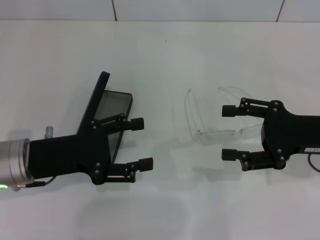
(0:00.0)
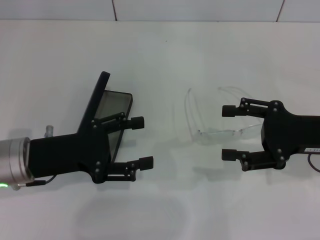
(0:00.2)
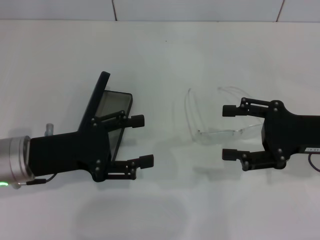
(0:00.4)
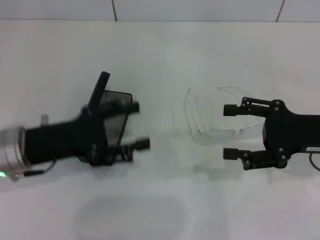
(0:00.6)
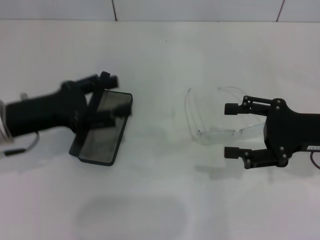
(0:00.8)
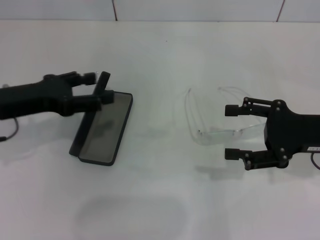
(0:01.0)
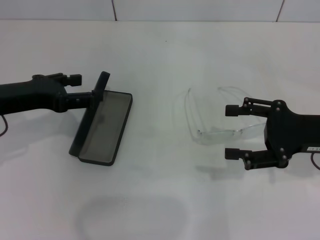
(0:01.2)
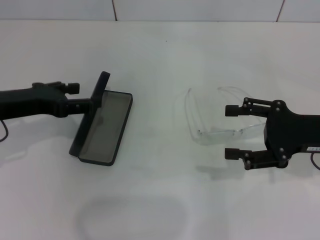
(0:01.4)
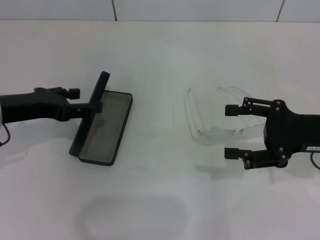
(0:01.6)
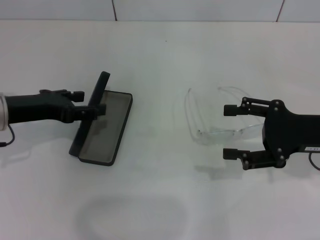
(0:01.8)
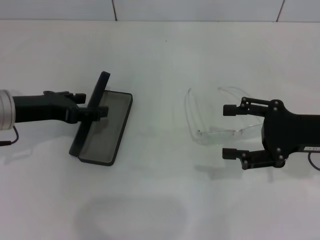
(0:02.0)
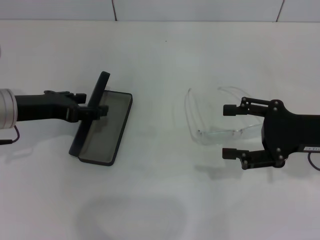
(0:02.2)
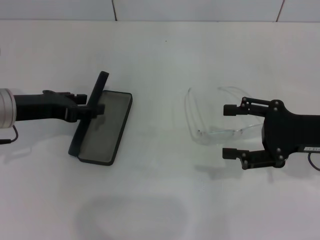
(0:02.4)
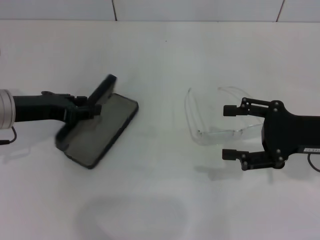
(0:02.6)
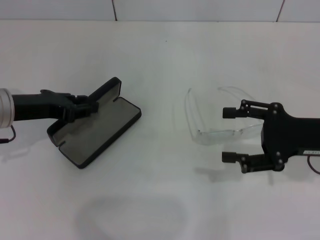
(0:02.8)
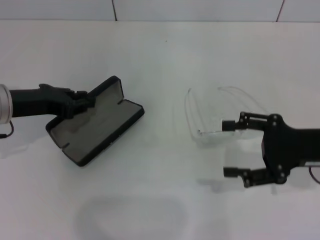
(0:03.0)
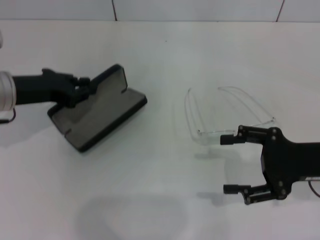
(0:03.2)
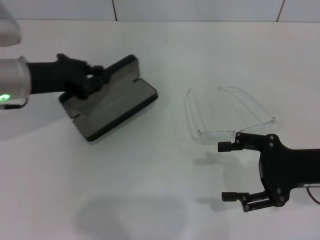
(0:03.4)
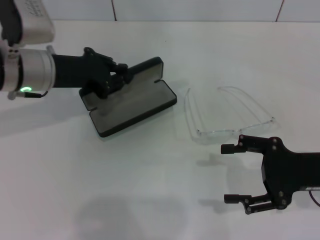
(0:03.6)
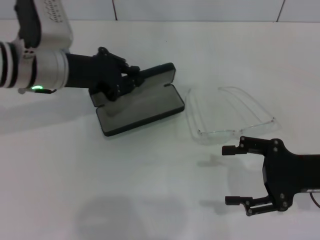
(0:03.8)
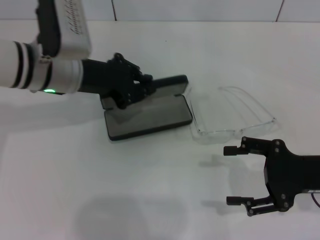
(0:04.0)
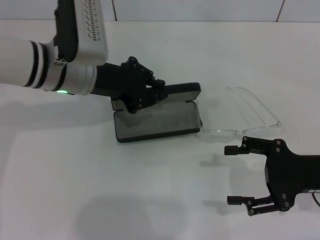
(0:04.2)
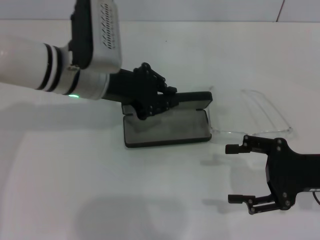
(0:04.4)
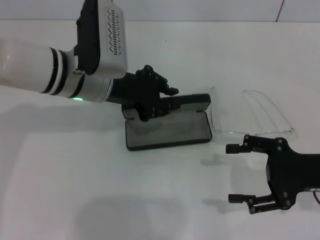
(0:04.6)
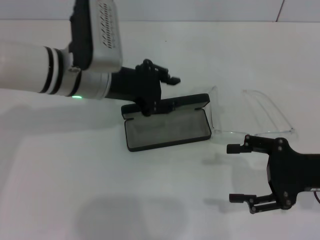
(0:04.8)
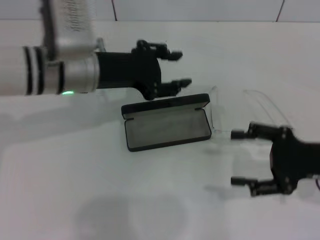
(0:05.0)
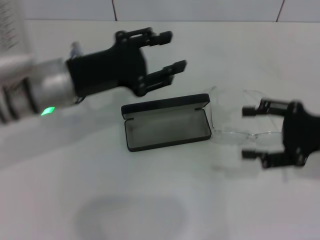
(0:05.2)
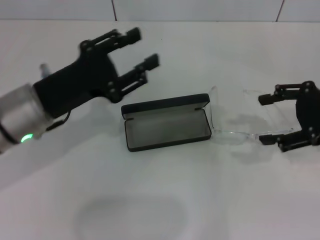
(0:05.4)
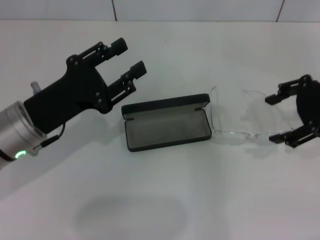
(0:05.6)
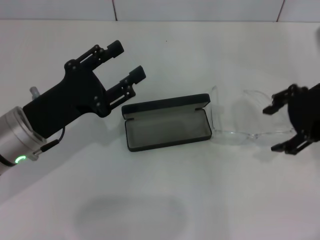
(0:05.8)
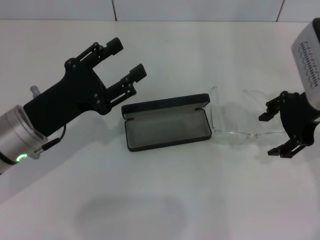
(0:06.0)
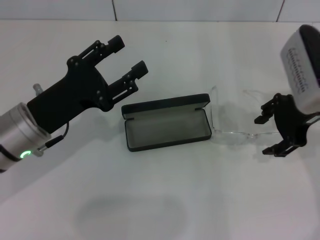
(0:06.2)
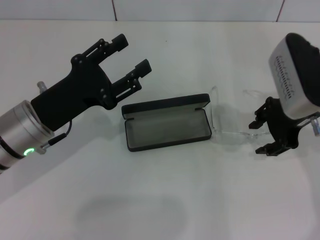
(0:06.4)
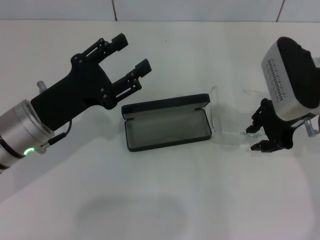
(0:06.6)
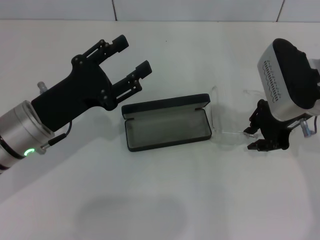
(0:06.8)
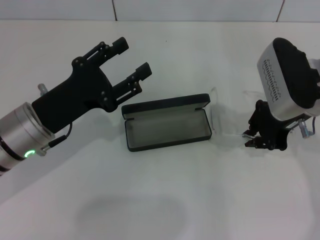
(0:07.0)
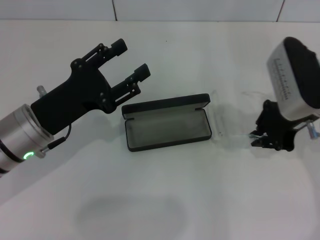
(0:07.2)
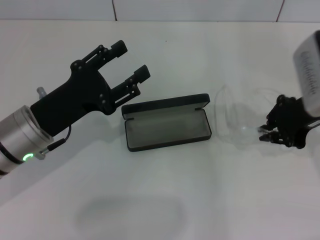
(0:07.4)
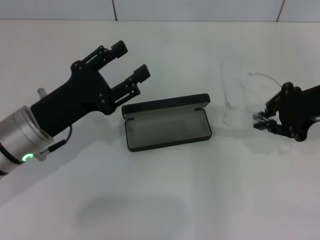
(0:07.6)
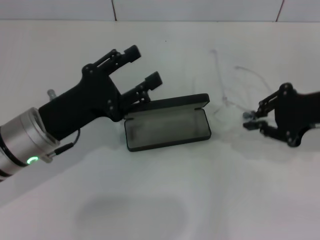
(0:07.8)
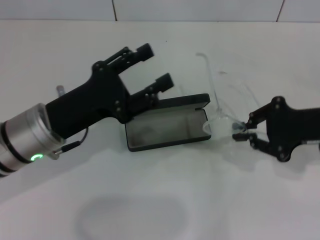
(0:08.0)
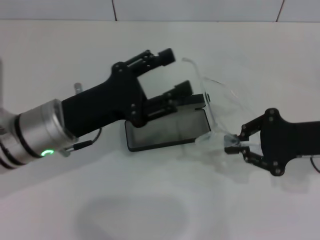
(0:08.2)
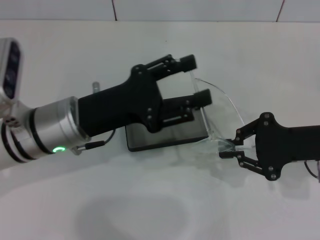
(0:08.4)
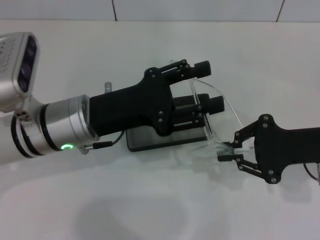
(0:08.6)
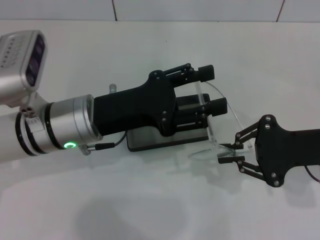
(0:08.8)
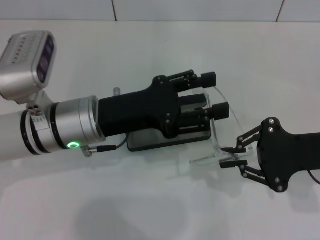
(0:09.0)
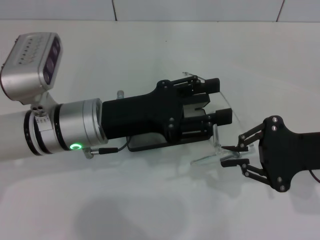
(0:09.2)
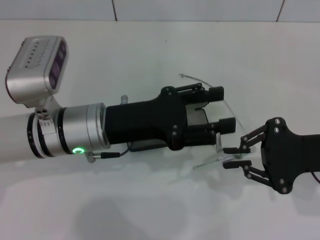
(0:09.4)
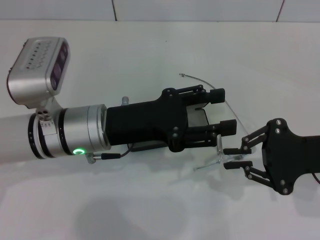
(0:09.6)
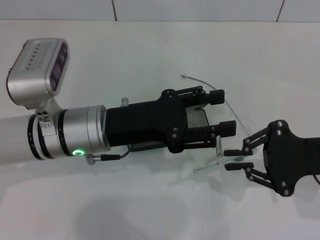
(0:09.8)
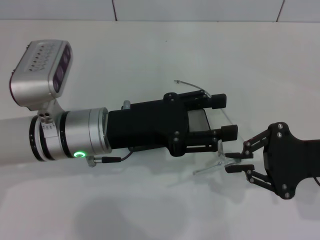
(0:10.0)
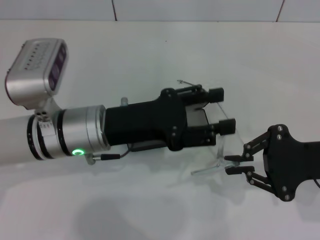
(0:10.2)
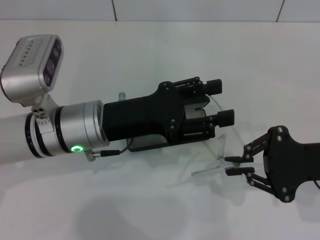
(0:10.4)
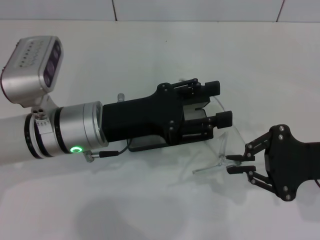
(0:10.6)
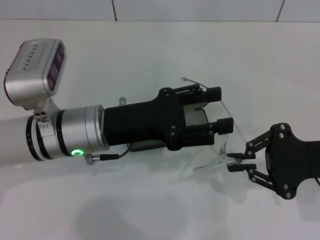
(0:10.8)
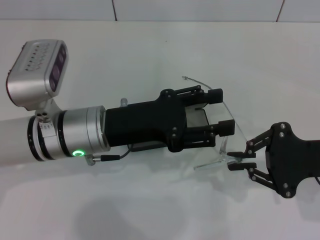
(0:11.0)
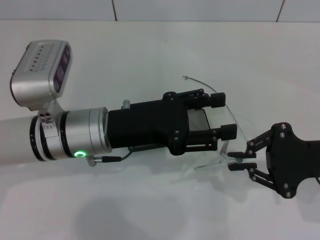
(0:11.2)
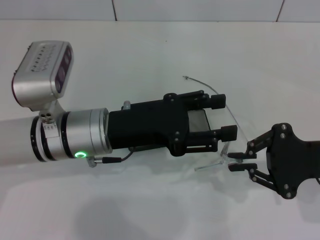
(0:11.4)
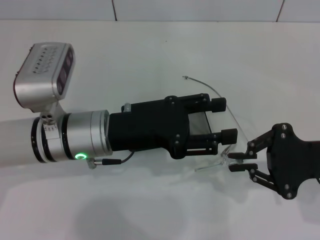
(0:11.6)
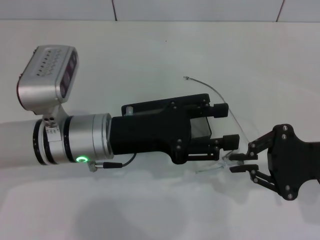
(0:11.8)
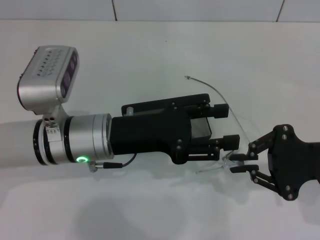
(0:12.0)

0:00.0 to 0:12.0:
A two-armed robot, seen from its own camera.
Step, 0:00.0 to 0:02.8: Grab the glasses case with your left hand.
Step, 0:03.0 to 0:04.8: Place the glasses case in the center of the table with your left hand.
Step, 0:05.0 to 0:07.0: Grab the eyeglass frame with your right hand.
0:00.0 to 0:01.6: The left gripper travels forward by some 5 cm.
0:01.6 to 0:03.0: The left gripper closes.
0:03.0 to 0:04.4: The left gripper goes some 15 cm to the right.
0:04.4 to 0:06.0: The right gripper is displaced upward, forward and to the left by roughly 15 cm, while the left gripper travels backward, to the left and downward by approximately 15 cm, and opens its fingers.
0:06.0 to 0:07.6: The right gripper closes.
0:07.6 to 0:09.0: The left gripper moves to the right, about 5 cm. The right gripper moves backward and downward, approximately 10 cm.
0:09.0 to 0:10.4: The two grippers keep their place.
0:10.4 to 0:12.0: The grippers stay close to where they were, moving slightly.

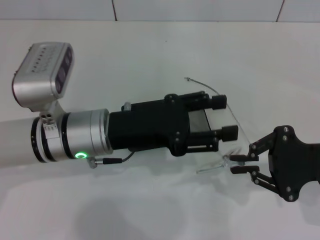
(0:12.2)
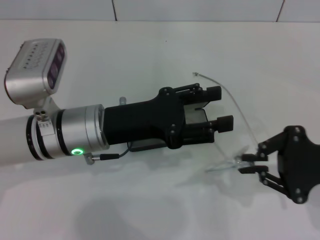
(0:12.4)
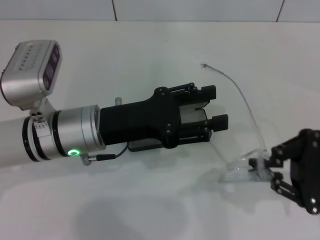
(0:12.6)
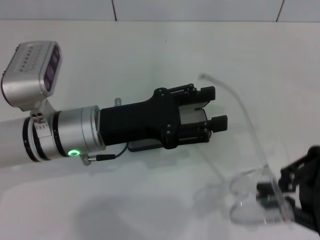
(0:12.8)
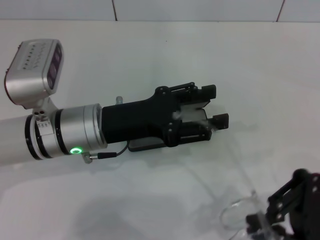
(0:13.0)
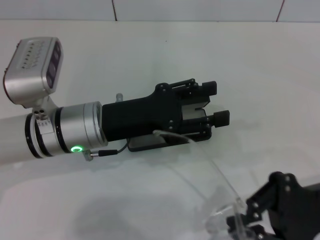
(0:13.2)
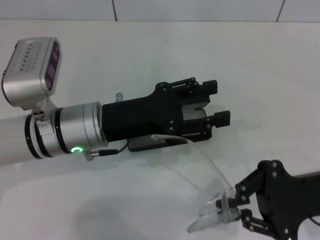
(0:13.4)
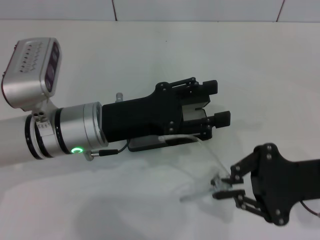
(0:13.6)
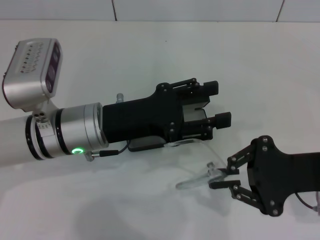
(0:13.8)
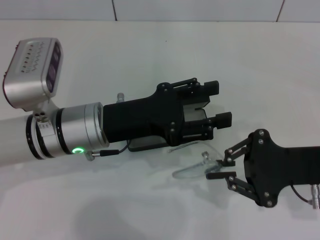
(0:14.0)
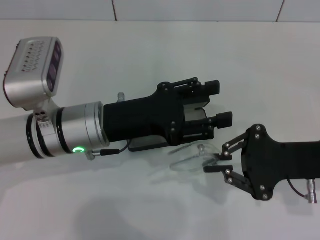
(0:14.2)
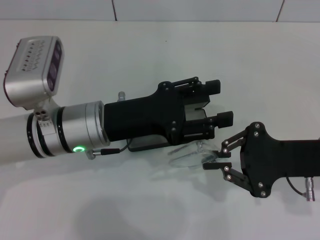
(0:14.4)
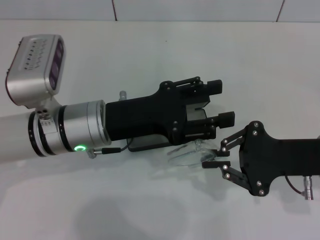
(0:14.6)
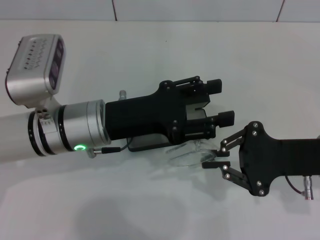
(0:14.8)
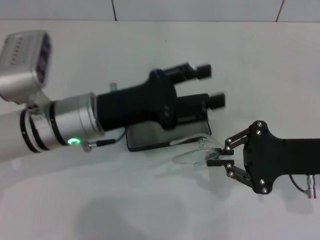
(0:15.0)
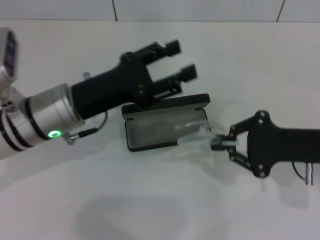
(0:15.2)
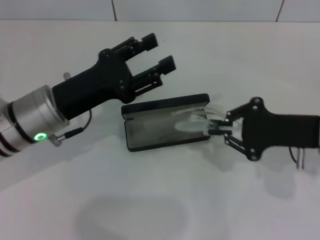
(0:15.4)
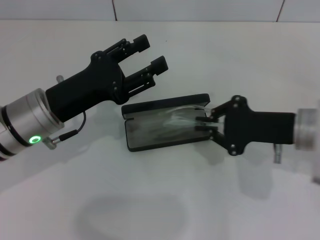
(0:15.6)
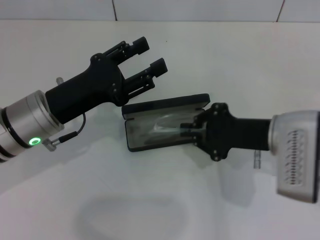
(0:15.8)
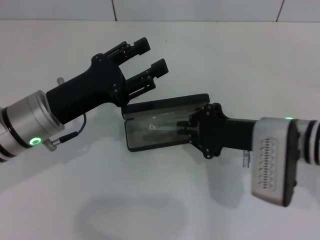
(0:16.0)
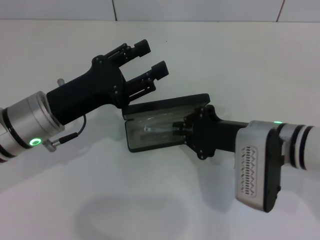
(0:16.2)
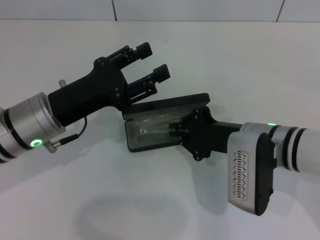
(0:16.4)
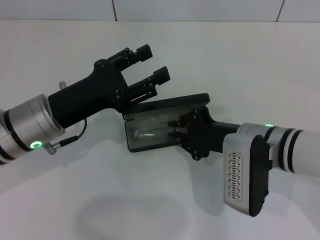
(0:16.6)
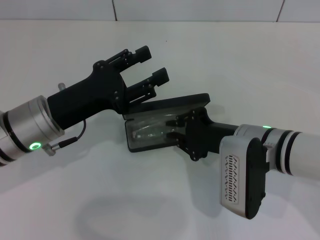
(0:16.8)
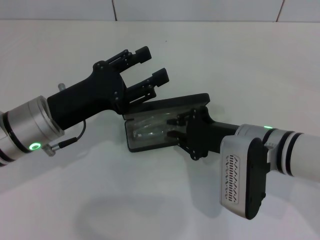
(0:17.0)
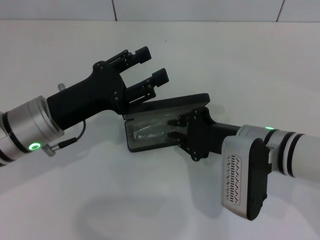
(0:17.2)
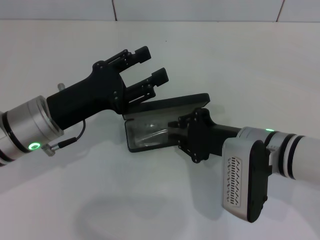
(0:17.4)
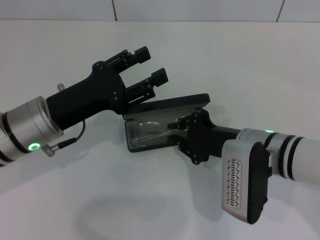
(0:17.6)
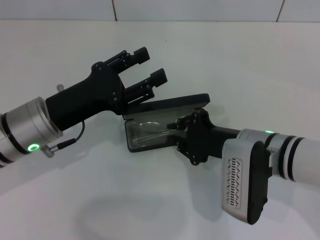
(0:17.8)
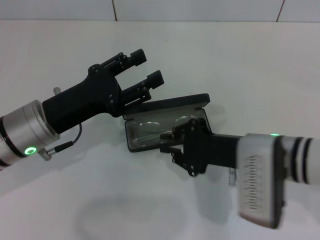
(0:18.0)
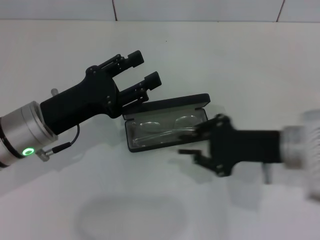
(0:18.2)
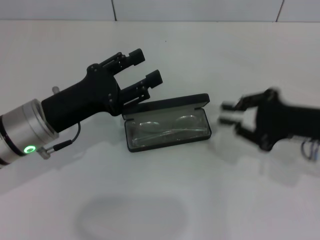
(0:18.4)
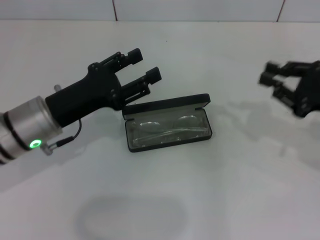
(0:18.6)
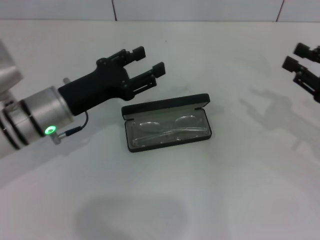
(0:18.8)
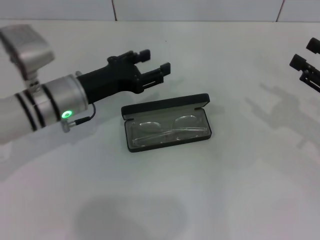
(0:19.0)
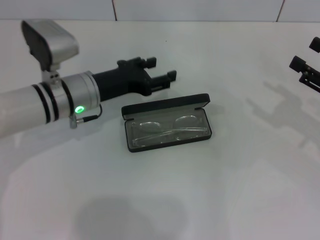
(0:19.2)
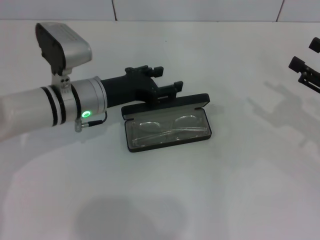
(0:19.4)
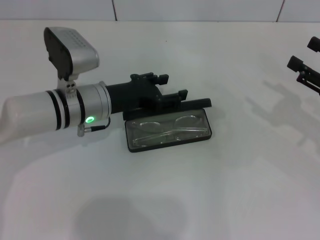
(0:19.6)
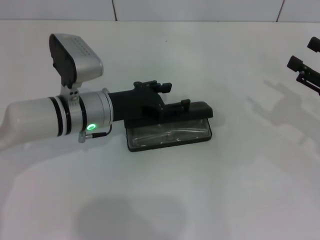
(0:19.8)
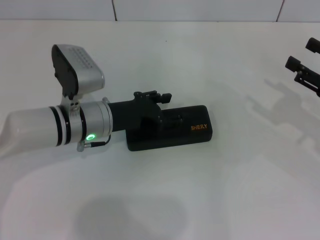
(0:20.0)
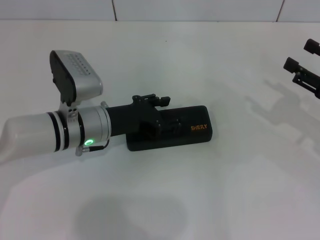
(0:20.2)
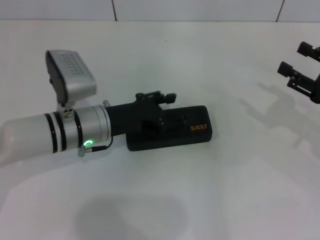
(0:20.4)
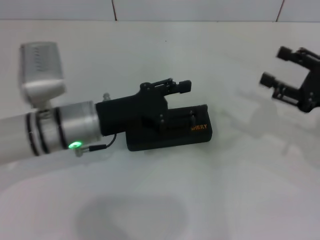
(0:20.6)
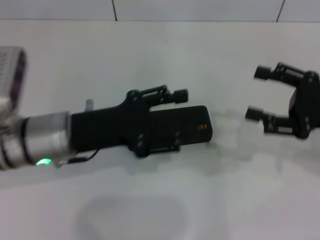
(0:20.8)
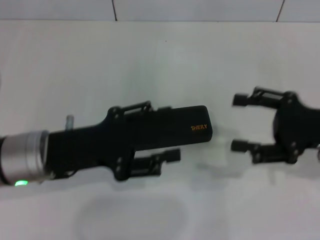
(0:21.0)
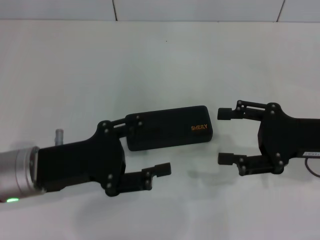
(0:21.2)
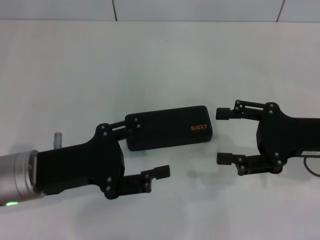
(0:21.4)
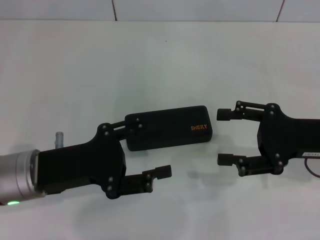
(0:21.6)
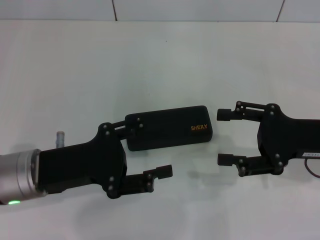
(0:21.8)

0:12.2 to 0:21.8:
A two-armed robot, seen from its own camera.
Step, 0:12.2 to 0:14.6: Fold the frame with your left hand.
Step, 0:14.8 to 0:17.0: Put the glasses into the case with your right hand.
Step, 0:17.2 to 0:20.2: Close the glasses case with your left hand.
0:12.2 to 0:13.8: The grippers make only small movements.
0:15.4 to 0:17.0: The right gripper is displaced to the left by approximately 10 cm.
0:17.0 to 0:18.6: The right gripper travels to the right by about 15 cm.
0:18.6 to 0:20.2: The right gripper opens its fingers; the left gripper moves to the right, roughly 5 cm.
0:20.2 to 0:21.8: The right gripper heads to the left, covering some 5 cm; the left gripper is displaced backward and to the left by about 10 cm.
